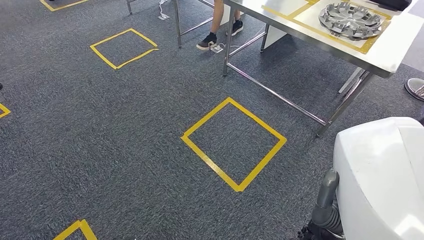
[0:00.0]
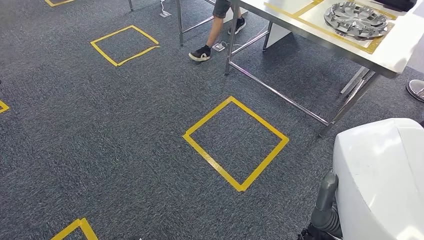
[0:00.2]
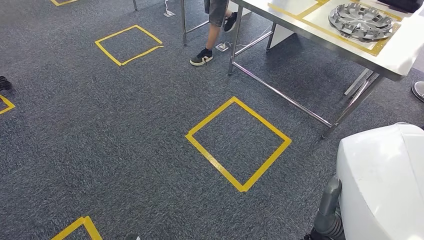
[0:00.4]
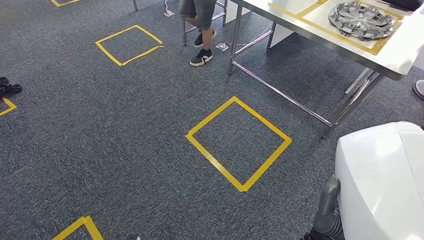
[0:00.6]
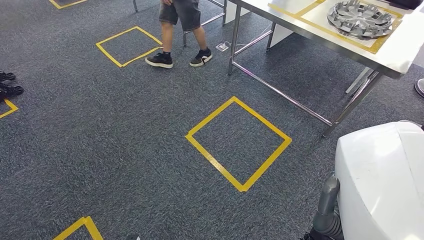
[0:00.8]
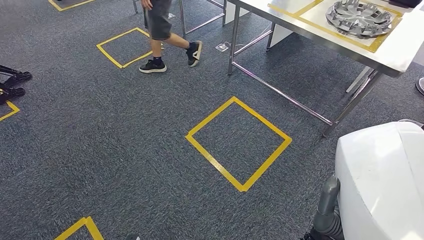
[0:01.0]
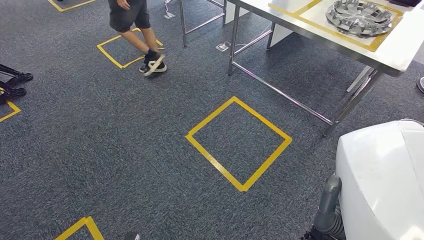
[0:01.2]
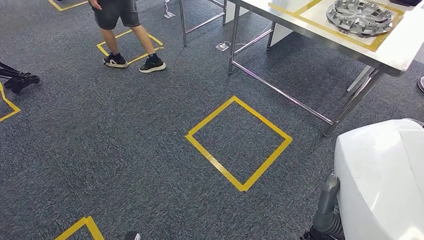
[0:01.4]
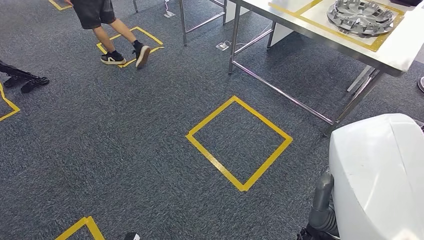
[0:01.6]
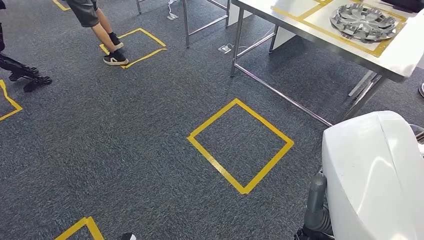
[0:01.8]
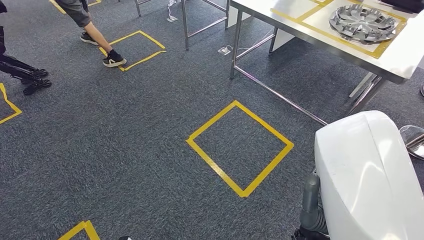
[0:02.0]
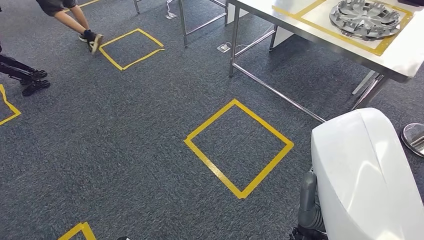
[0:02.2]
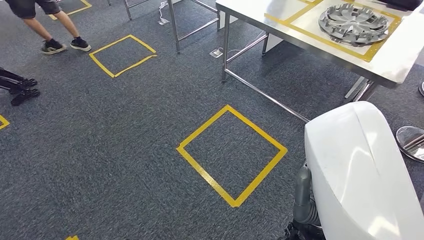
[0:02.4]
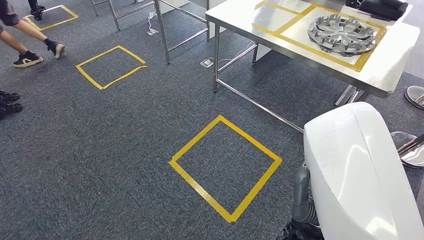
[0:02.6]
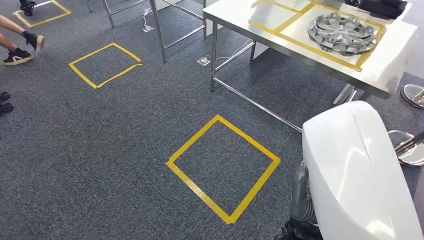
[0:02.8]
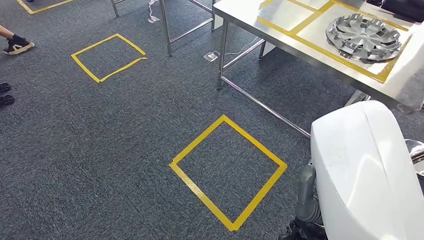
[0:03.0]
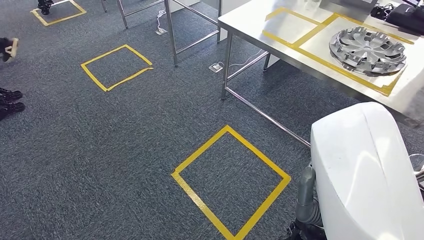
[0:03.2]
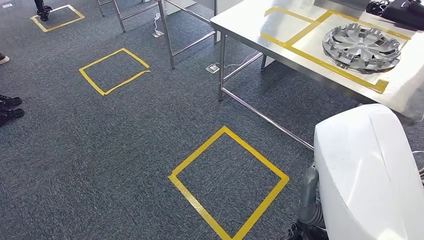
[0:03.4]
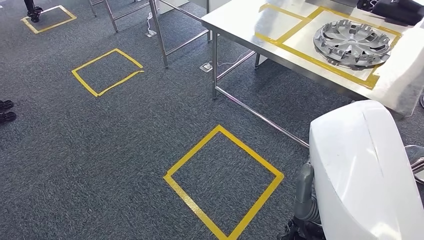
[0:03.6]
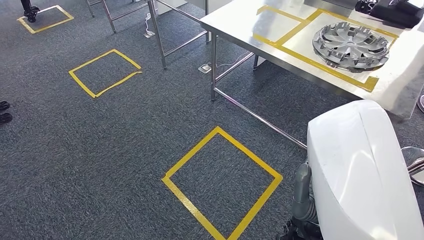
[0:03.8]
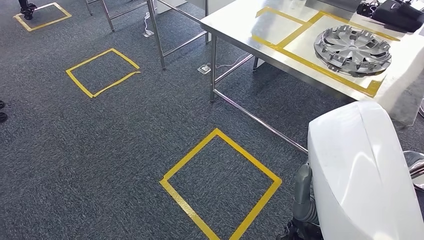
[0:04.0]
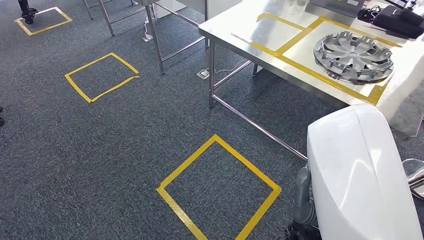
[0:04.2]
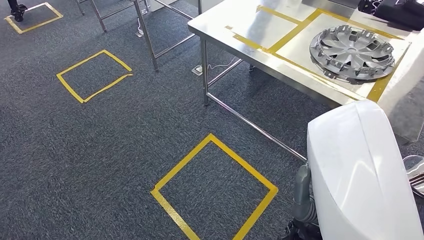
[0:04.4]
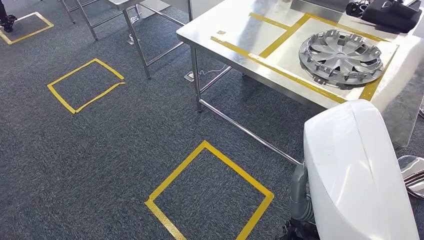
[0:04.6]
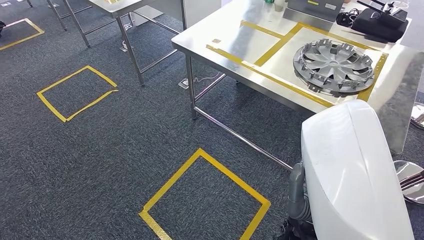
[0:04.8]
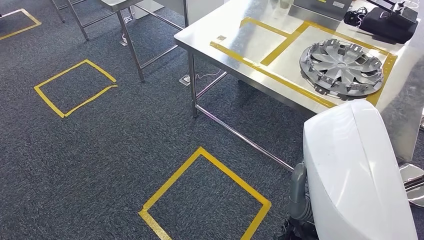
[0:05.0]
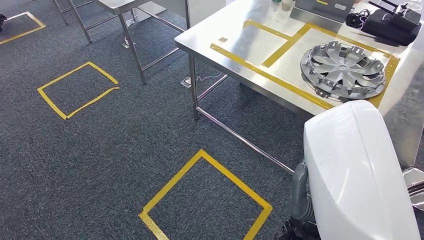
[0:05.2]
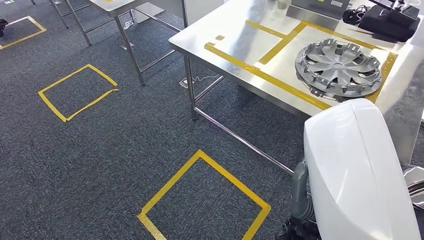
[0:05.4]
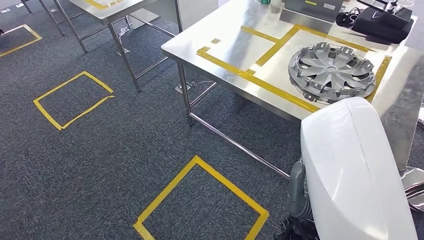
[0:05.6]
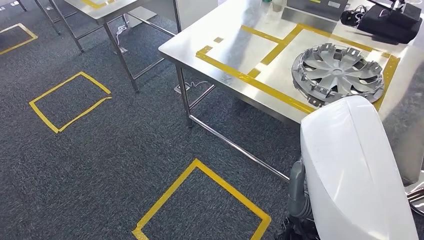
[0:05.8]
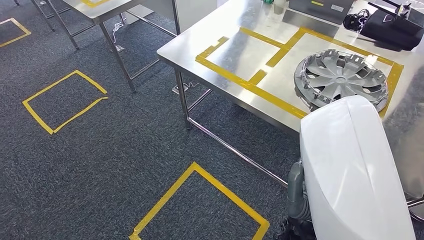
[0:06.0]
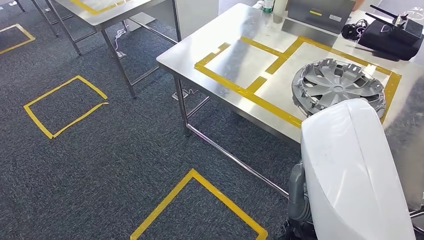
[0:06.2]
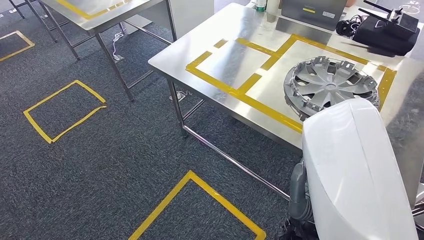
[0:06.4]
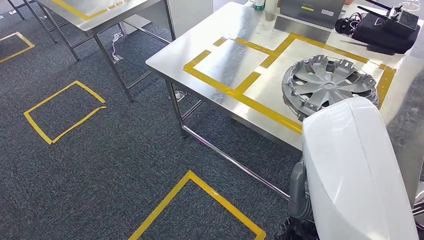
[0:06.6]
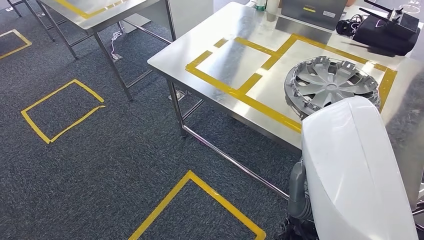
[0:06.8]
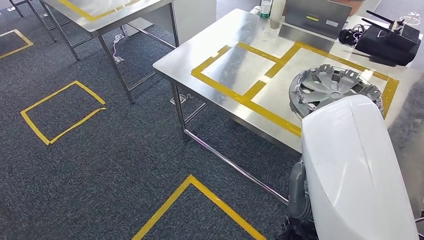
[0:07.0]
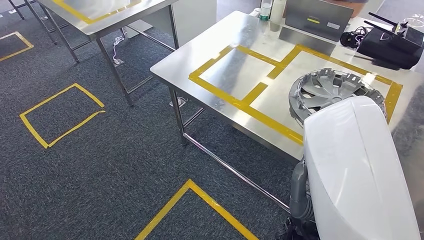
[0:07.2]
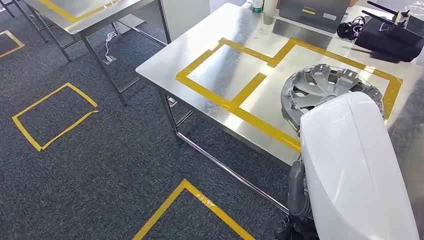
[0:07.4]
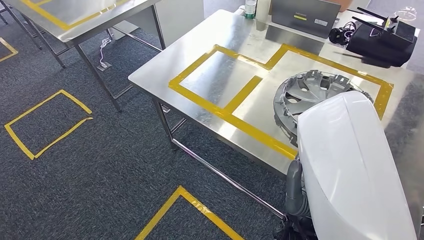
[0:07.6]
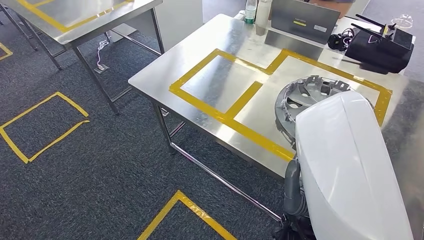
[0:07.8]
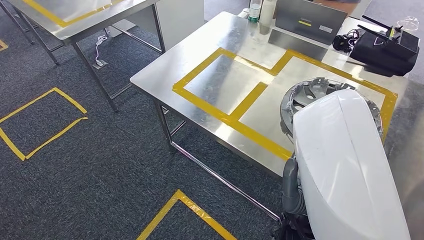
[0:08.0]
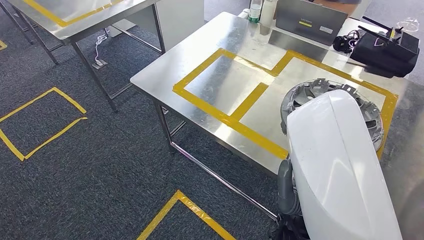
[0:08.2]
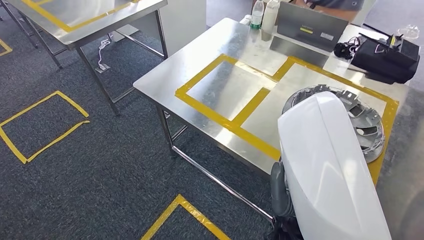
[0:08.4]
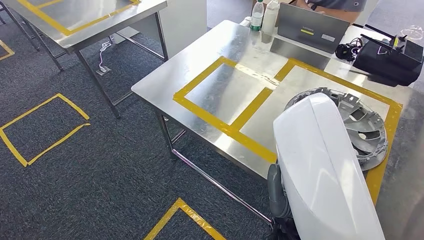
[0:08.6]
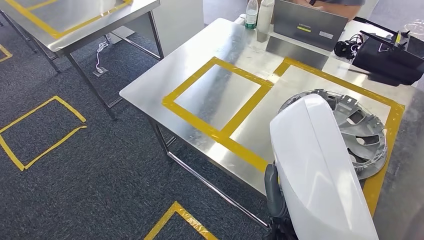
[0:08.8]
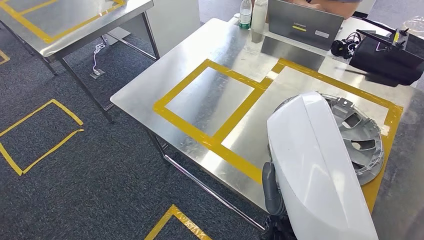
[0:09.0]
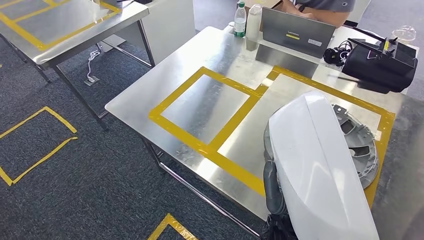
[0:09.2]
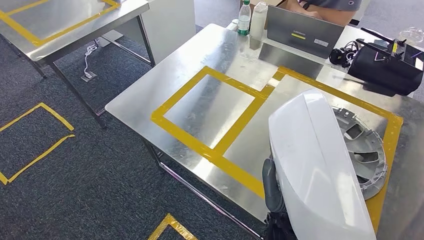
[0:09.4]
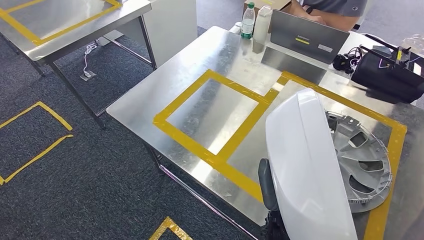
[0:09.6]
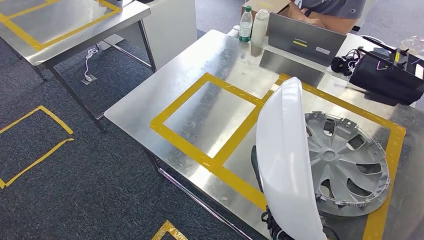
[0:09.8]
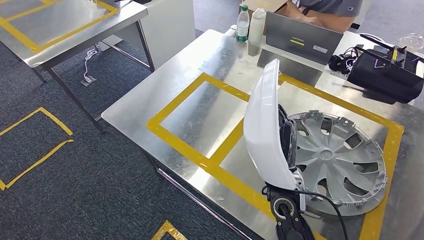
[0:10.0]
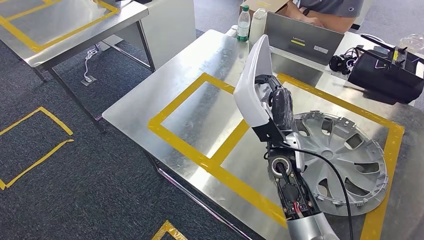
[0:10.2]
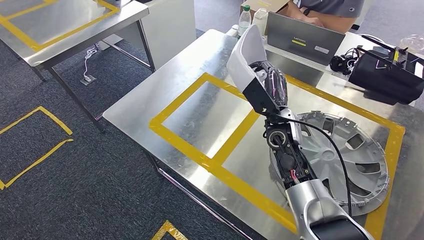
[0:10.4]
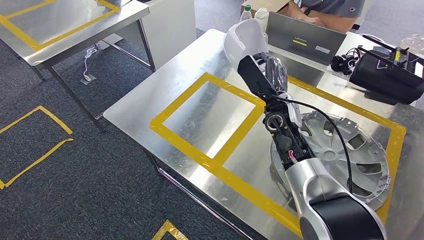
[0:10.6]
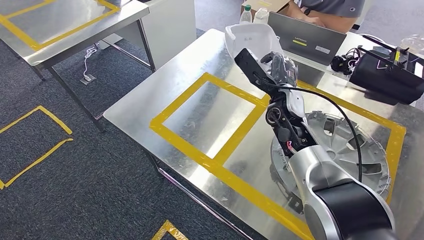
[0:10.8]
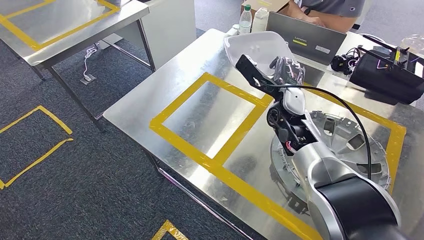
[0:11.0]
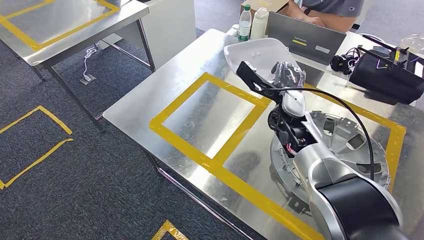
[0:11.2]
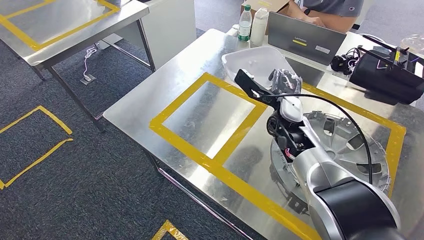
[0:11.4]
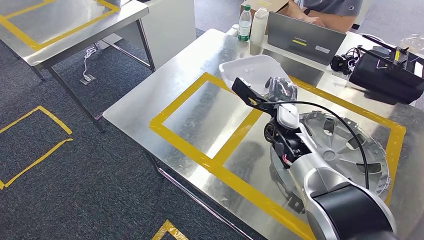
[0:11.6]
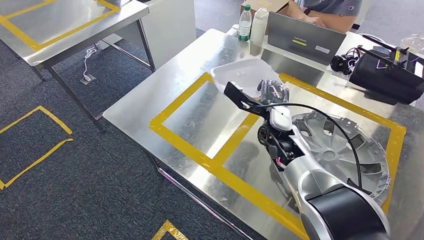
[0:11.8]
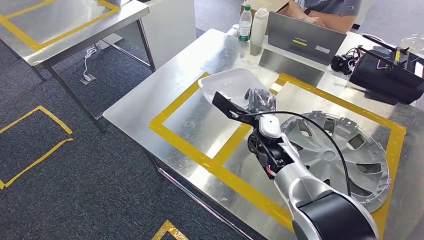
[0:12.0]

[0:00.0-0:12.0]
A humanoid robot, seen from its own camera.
Step, 0:00.0 to 0:09.0: Move the large material to the workbench.
0:00.0 to 0:01.6: The hands move only a little.

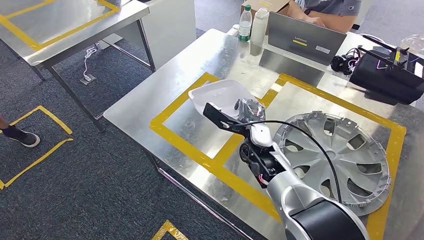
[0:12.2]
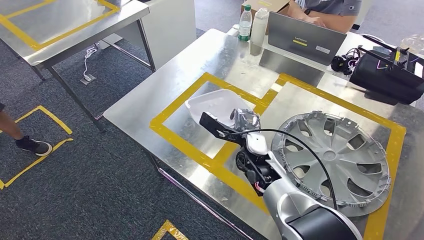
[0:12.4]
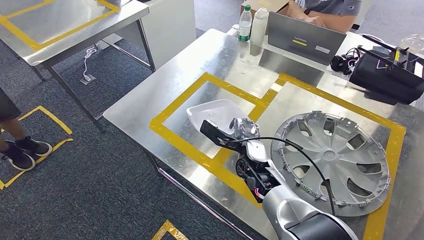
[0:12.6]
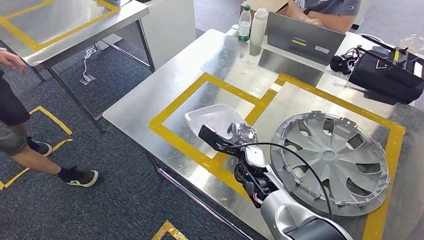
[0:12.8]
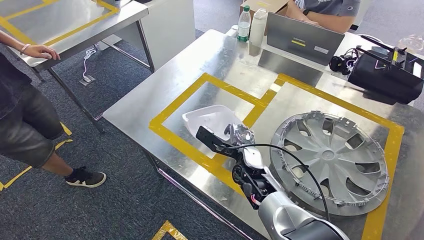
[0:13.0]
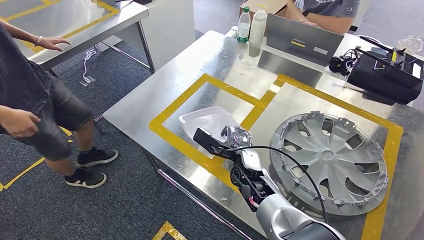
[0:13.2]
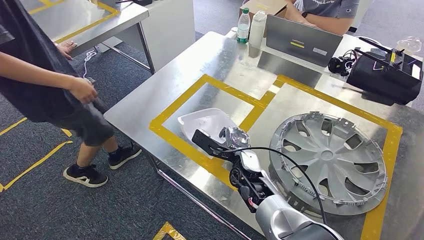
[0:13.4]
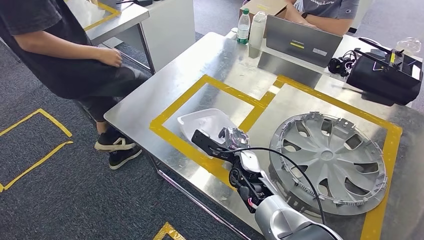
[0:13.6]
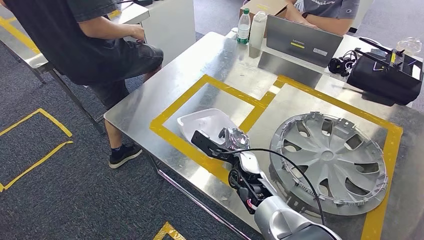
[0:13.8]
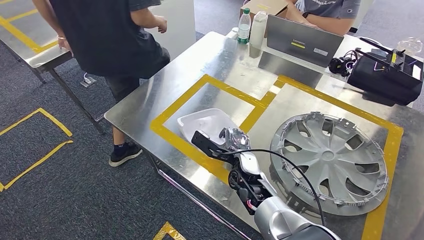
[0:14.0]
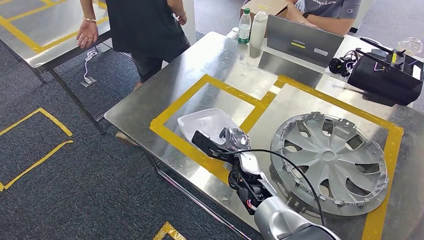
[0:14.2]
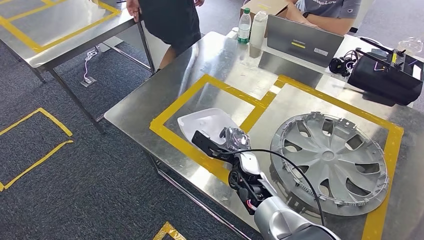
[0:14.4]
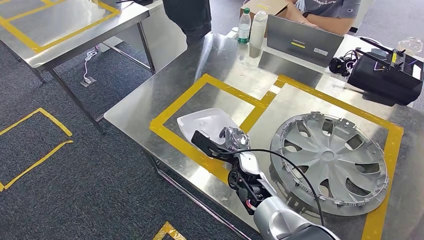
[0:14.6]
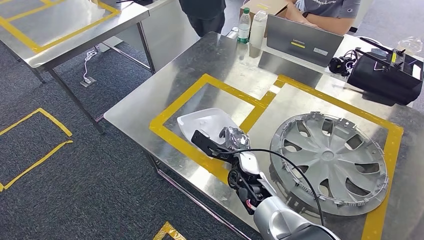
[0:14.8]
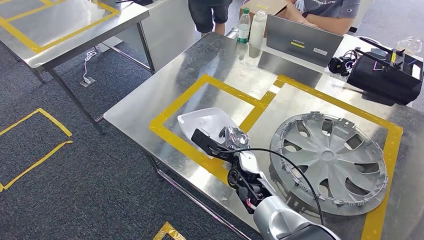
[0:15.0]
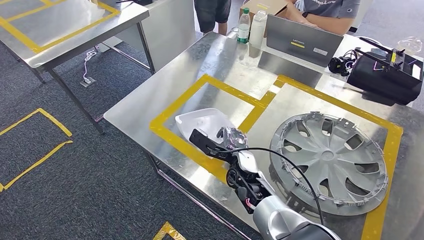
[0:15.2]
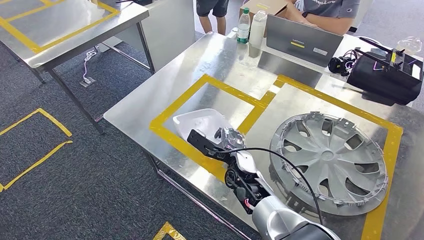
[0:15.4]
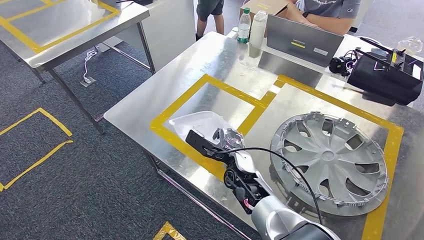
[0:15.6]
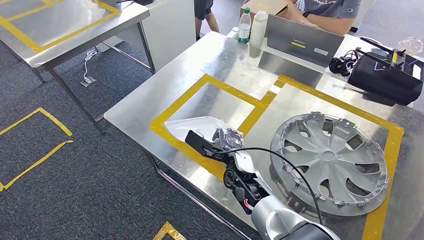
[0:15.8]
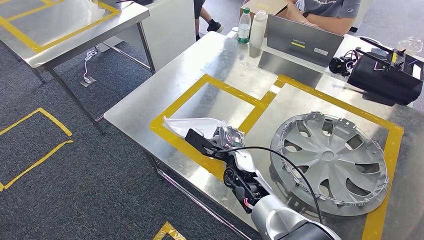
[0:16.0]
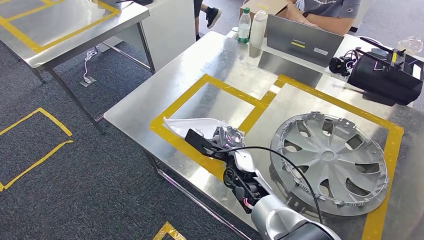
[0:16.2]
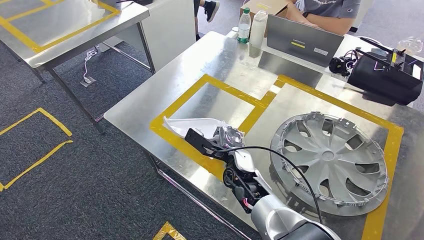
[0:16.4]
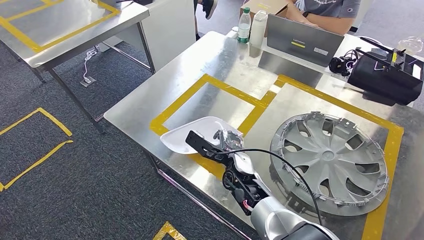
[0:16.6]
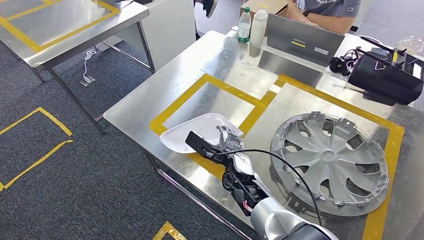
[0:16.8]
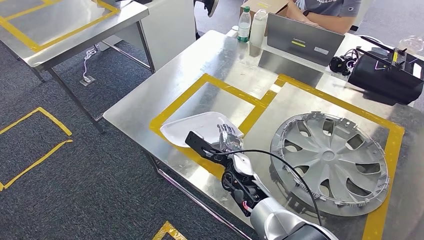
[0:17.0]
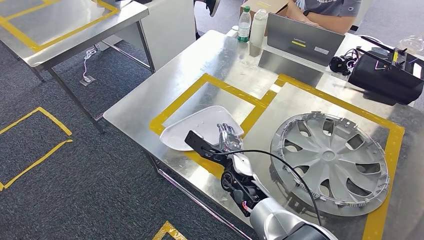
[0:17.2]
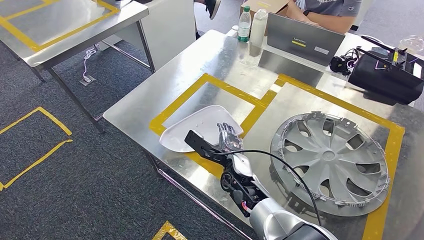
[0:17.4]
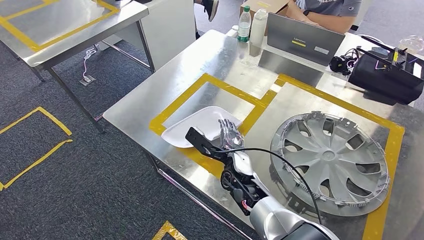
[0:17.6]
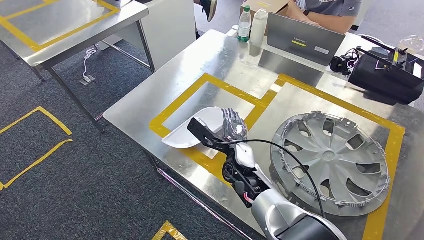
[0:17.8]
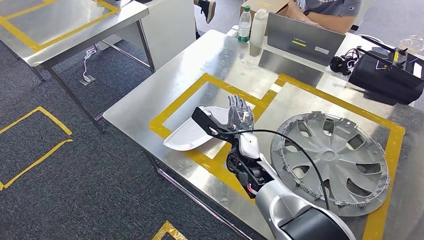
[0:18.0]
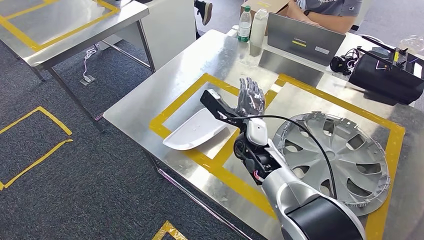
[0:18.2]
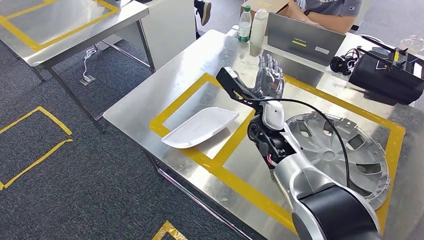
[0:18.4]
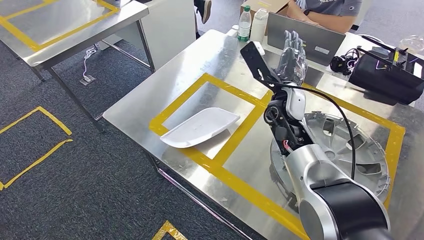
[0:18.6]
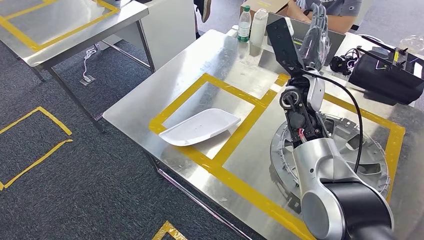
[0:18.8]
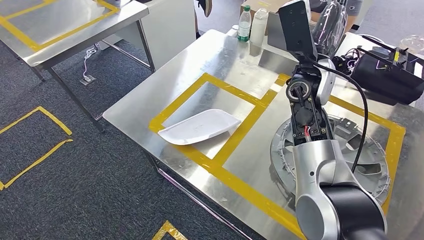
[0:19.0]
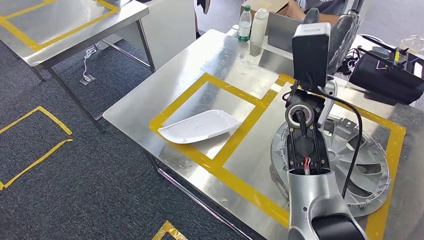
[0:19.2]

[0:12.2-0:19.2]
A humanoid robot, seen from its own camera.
0:15.0 to 0:16.4: Both hands stay put.
0:16.4 to 0:17.8: The hands stay close to where they were, moving slightly.
0:17.8 to 0:19.2: The right hand is displaced upward by roughly 20 cm.
